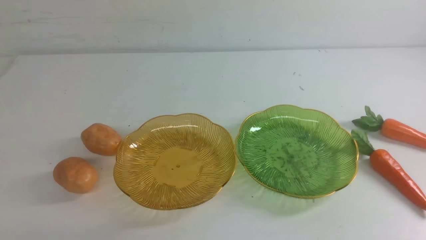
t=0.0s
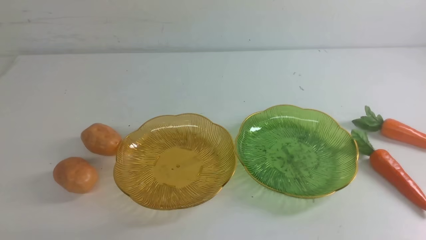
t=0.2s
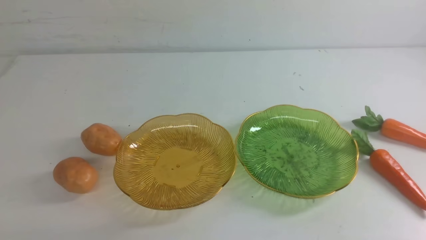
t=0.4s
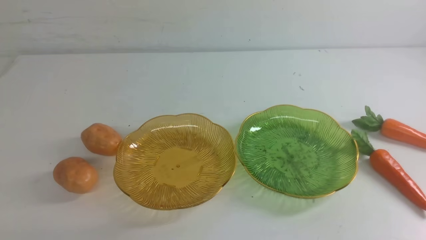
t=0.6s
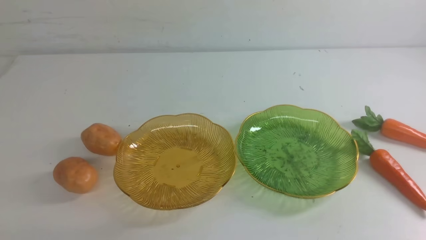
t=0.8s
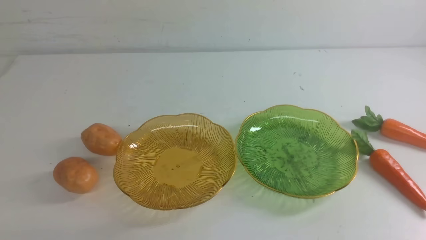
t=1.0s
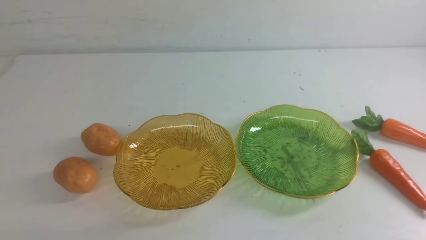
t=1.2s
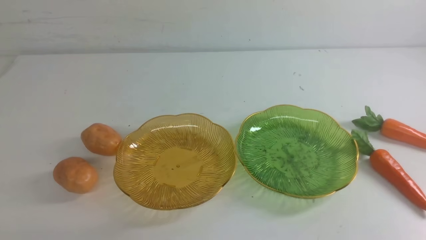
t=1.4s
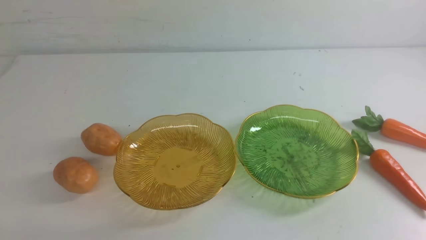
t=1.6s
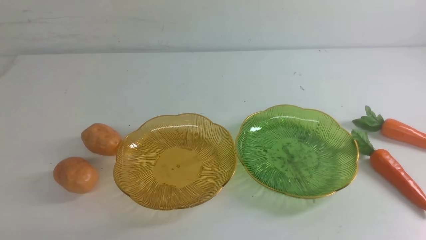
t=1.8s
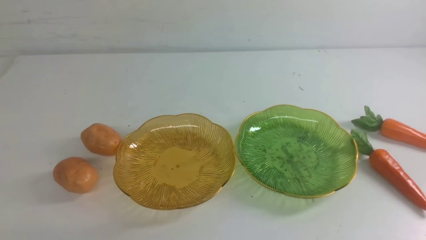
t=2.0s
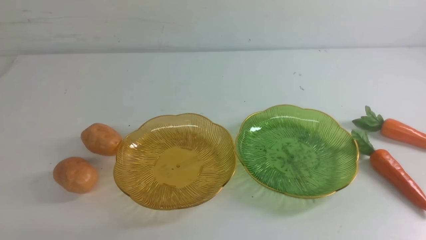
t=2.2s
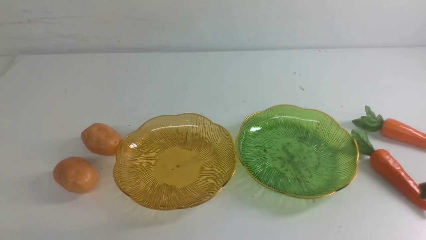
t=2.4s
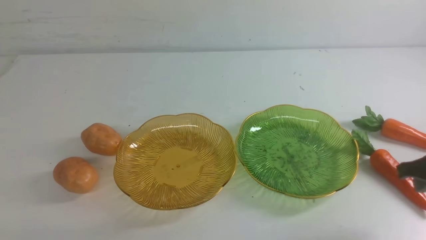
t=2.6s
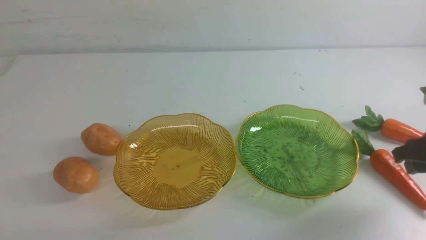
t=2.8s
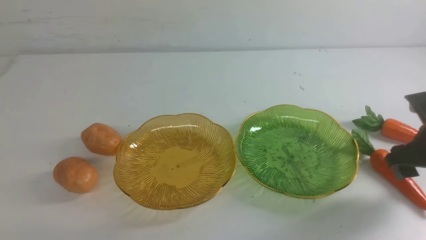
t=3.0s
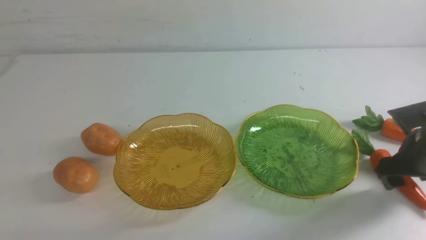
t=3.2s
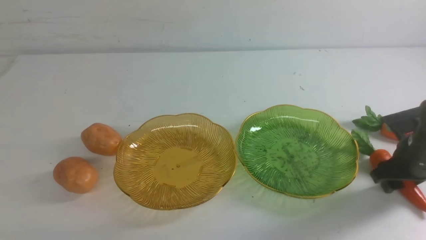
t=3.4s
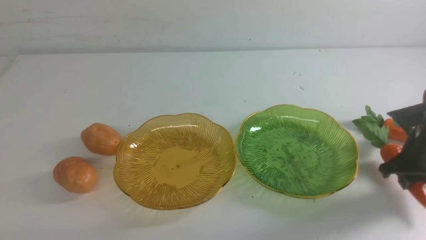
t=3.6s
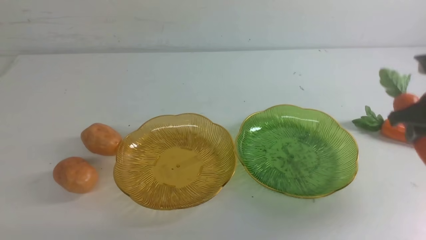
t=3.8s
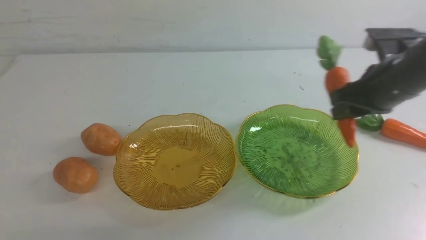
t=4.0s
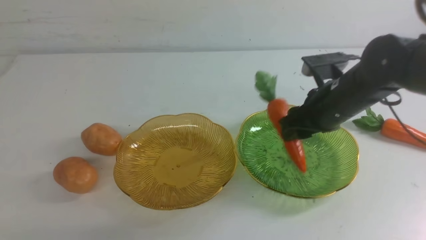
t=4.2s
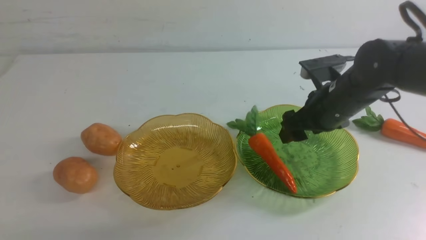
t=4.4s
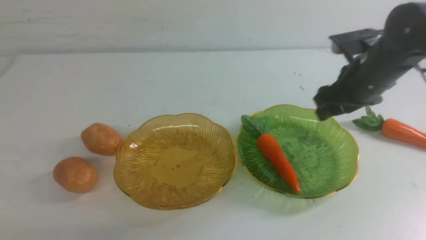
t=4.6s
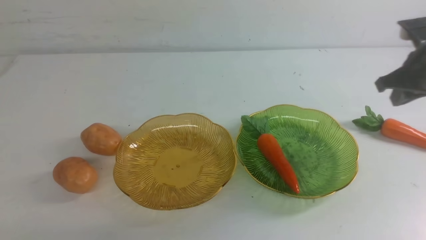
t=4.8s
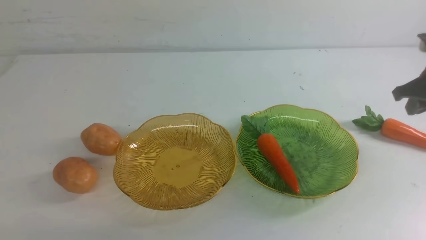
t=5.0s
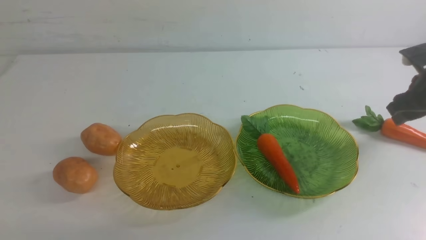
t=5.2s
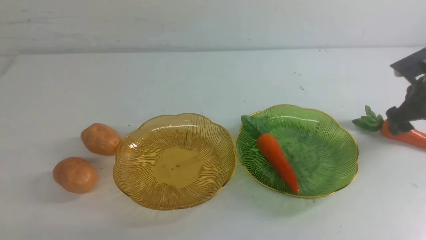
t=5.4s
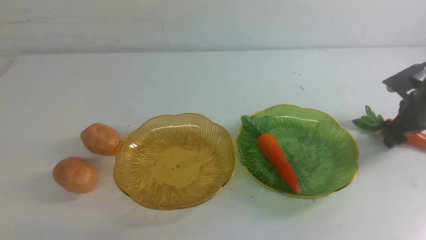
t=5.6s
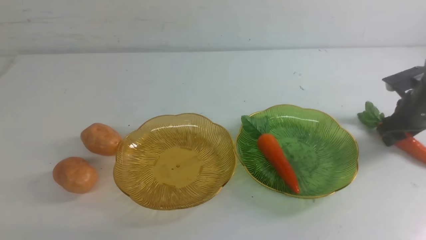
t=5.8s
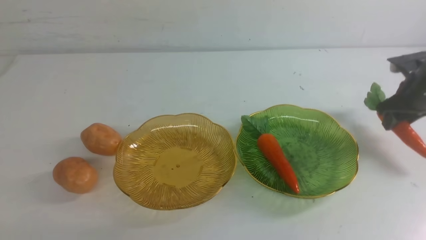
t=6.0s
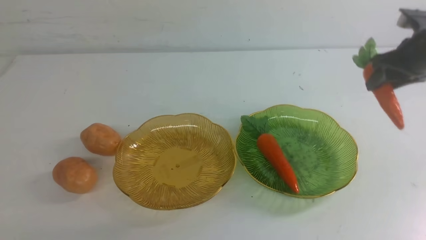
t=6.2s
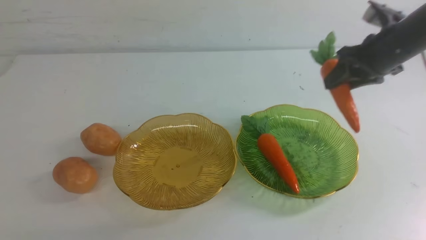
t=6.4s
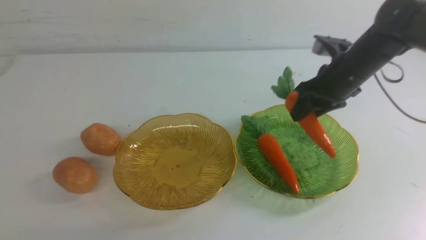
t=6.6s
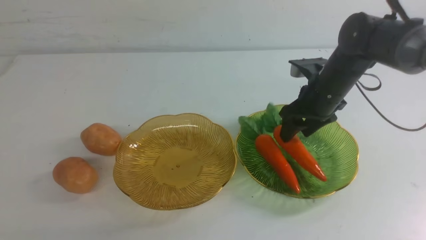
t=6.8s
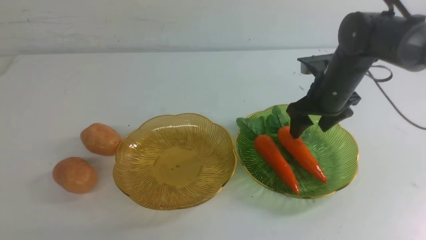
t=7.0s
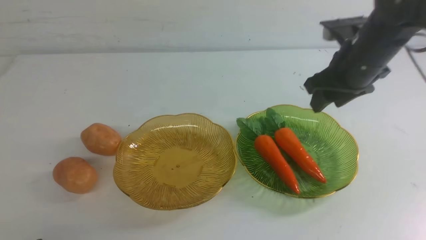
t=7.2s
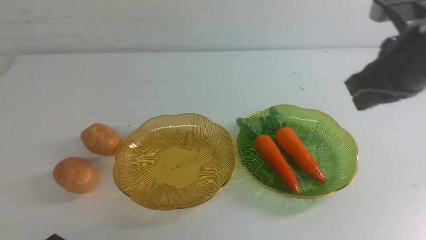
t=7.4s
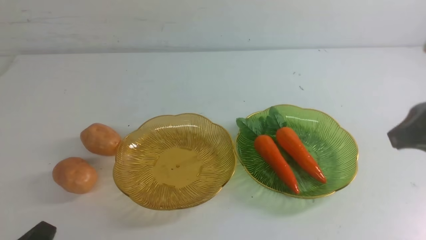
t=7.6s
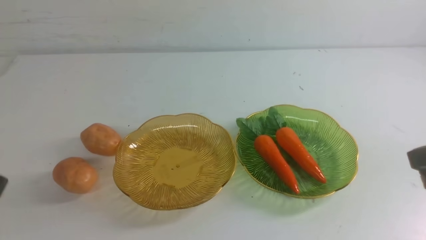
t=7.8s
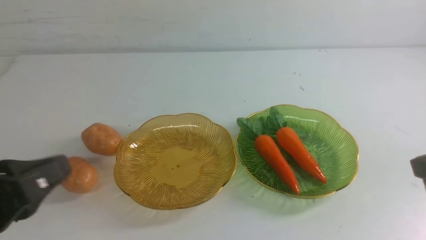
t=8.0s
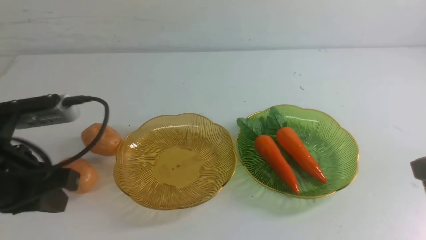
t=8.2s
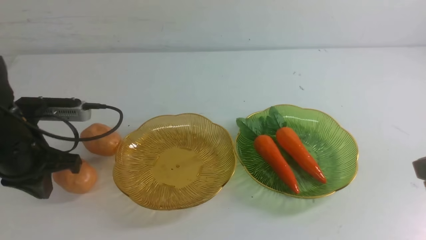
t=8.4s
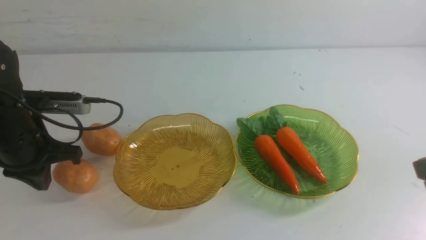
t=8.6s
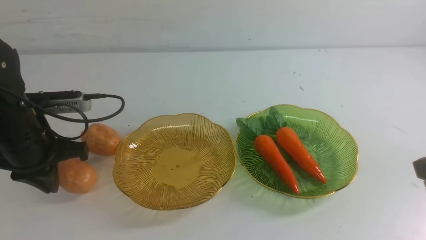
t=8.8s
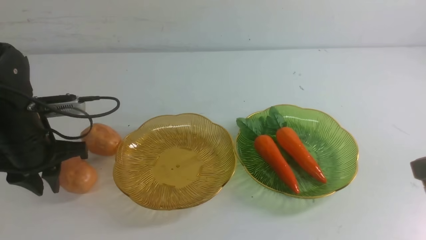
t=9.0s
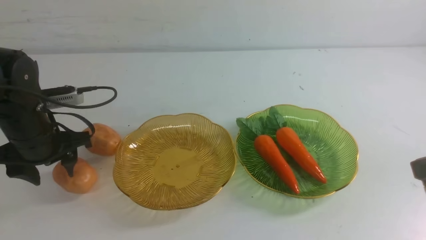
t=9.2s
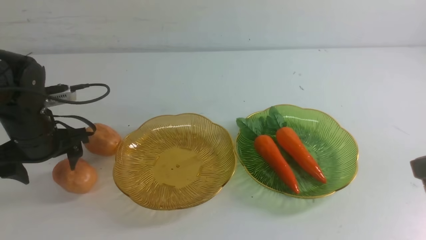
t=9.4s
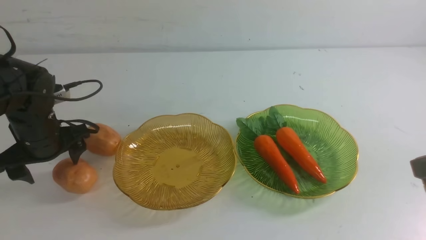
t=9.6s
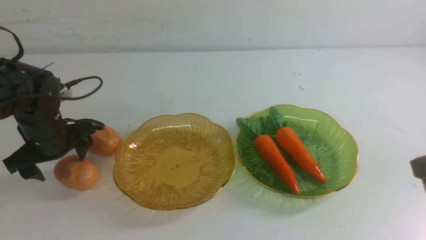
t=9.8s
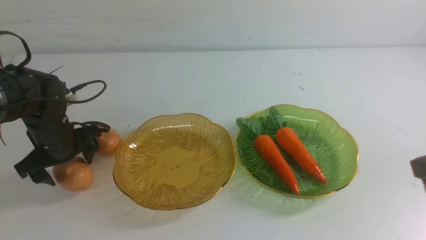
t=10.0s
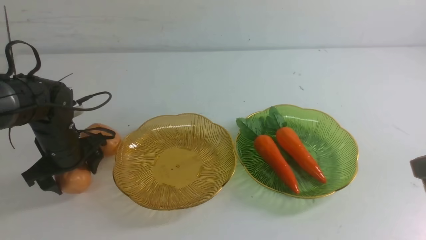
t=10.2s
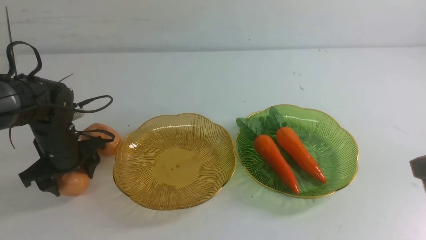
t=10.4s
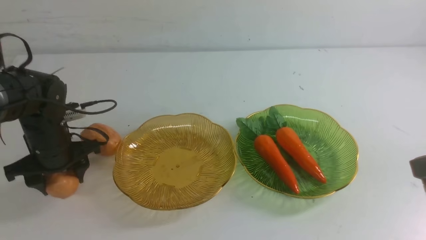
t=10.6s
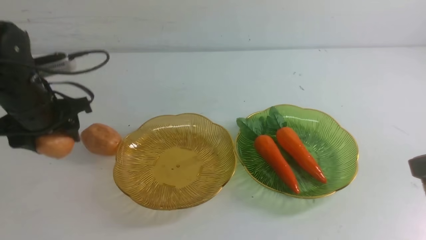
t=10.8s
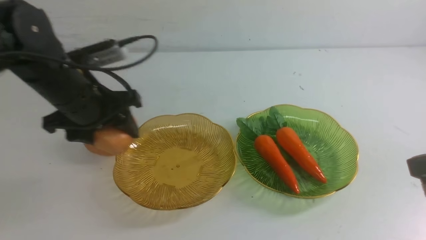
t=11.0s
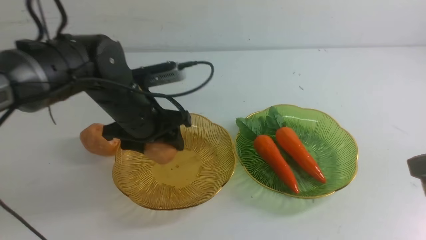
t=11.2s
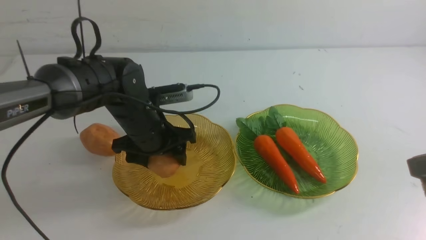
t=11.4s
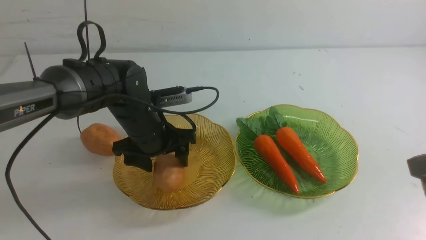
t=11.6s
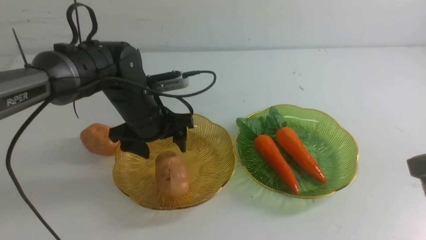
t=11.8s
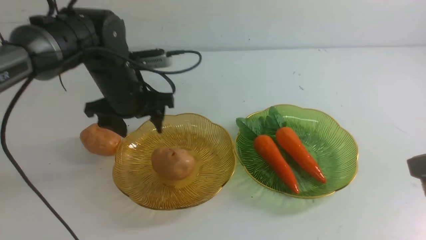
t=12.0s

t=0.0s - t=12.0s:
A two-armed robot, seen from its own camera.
Step, t=0.0s - t=7.2s: use the right arm to grab a carrot and put it into the right plate.
t=1.6s - t=3.0s: The right gripper goes about 25 cm forward, and opens up.
t=3.0s - t=4.4s: The right gripper goes roughly 15 cm to the left, upward and forward.
t=4.4s - t=6.0s: The right gripper is displaced to the right and forward by roughly 15 cm, and closes, then reopens.
t=6.0s - t=7.6s: The right gripper travels backward by approximately 30 cm, and closes up. Meanwhile the left gripper is displaced upward and forward by about 15 cm.
t=7.6s - t=9.0s: The left gripper travels forward and downward by some 20 cm, and opens up.
t=10.4s - t=12.0s: The left gripper goes approximately 10 cm to the right, upward and forward.

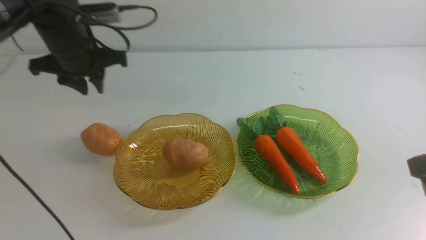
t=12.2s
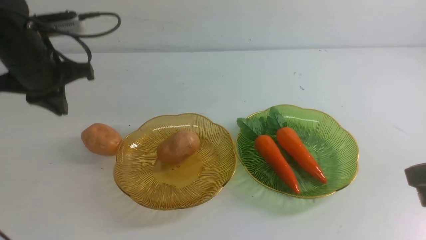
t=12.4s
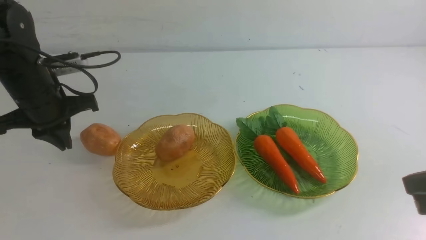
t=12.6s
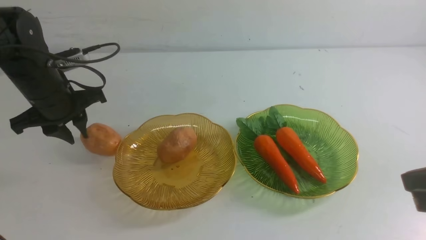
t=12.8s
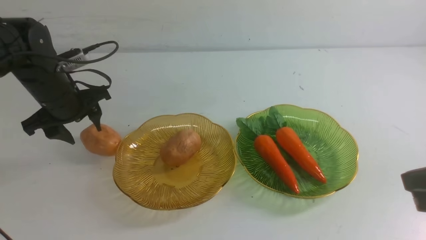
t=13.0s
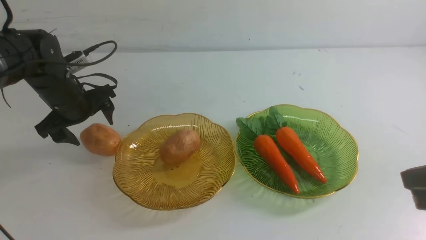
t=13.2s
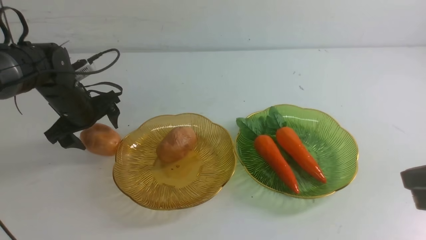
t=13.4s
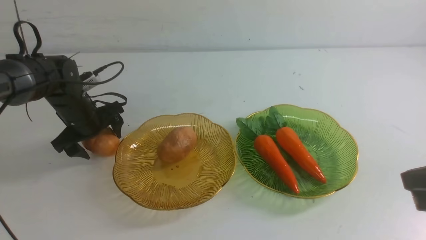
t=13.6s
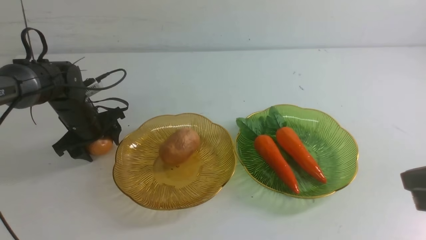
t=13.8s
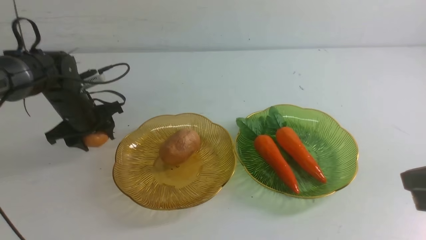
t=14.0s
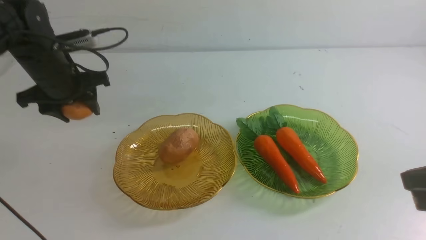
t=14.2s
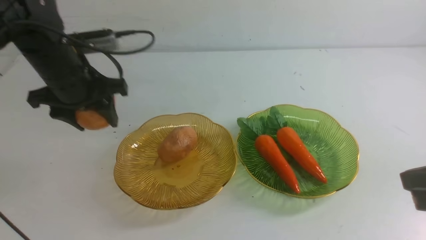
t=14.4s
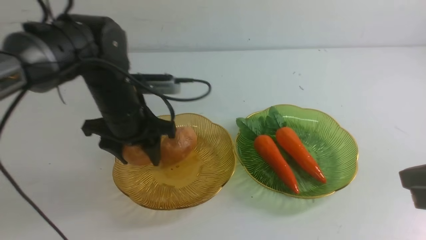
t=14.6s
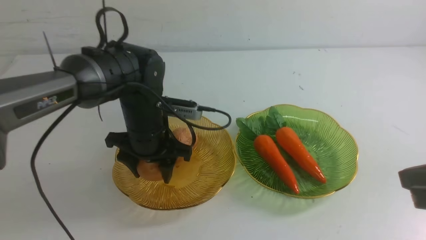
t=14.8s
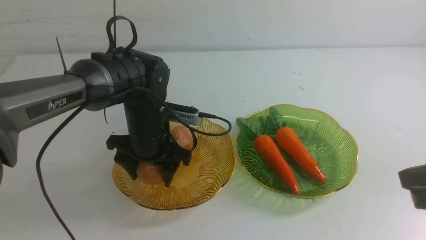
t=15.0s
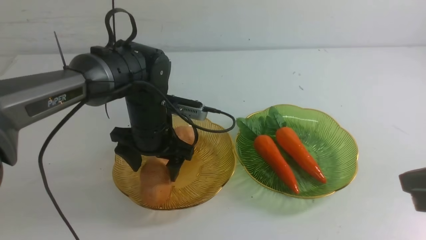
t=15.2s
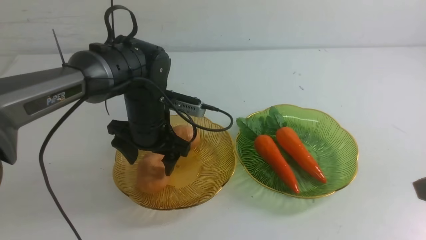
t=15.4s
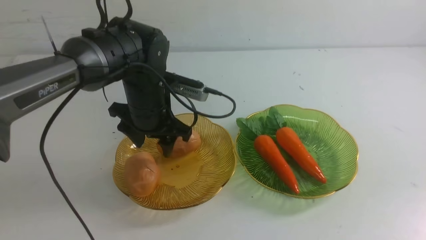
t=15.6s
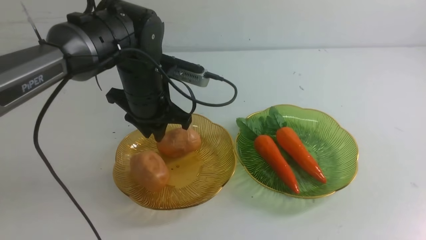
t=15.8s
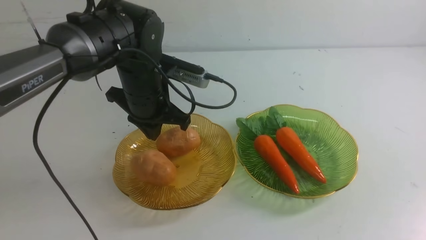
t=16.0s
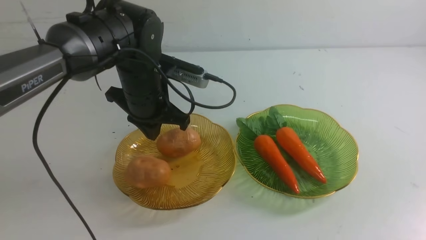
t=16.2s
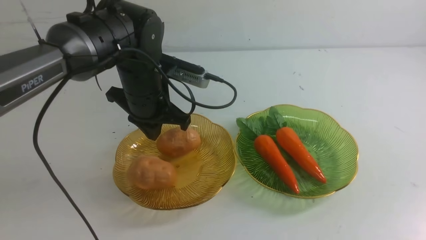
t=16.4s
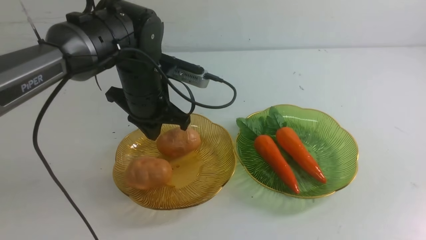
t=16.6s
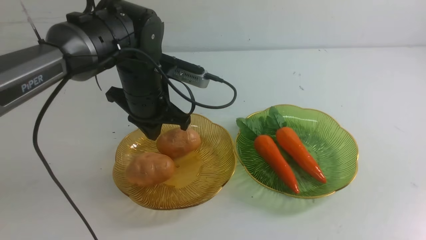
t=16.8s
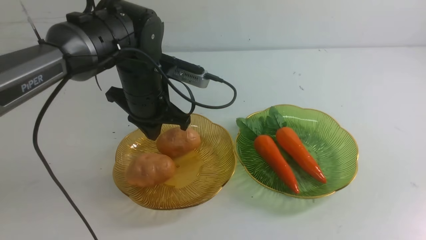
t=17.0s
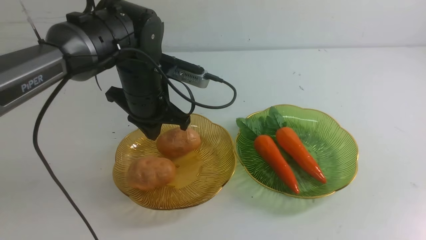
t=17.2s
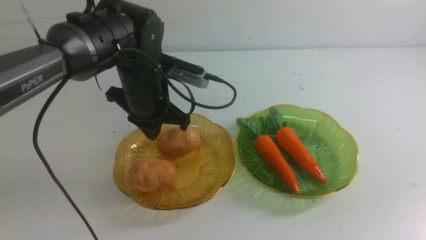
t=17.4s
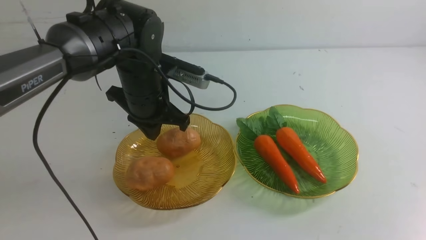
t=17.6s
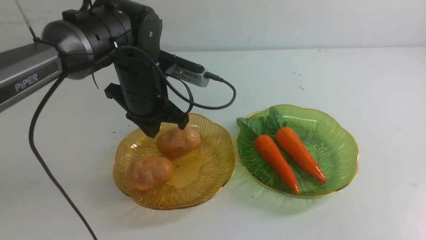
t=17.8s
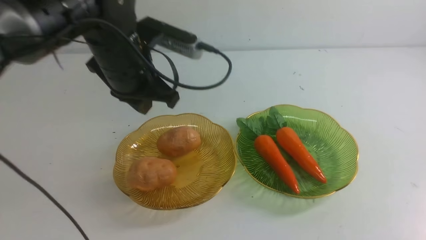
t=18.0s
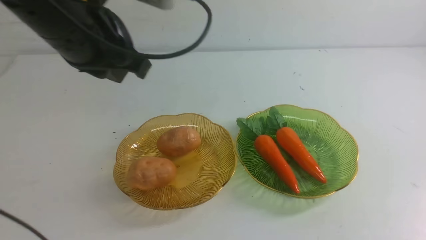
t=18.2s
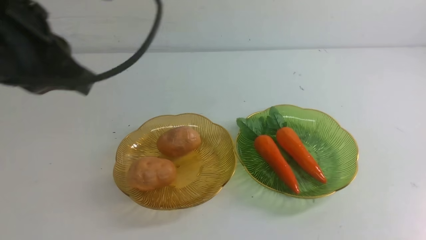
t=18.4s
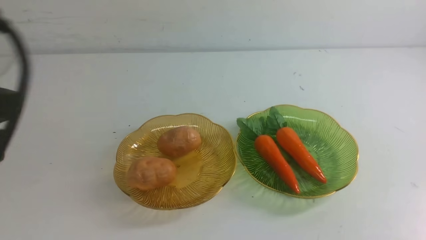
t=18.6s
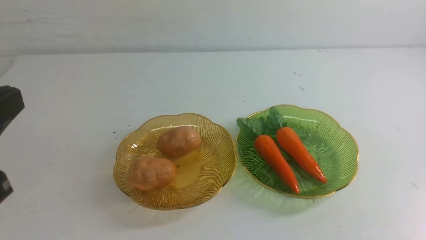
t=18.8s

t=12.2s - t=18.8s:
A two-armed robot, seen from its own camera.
Step, t=12.2s - t=15.4s: Grab a potato with your left arm and put it on the left plate.
t=12.2s - t=13.8s: The left gripper shifts some 15 cm downward, and opens its fingers.
t=13.8s - t=15.4s: The left gripper moves to the right, roughly 15 cm.
t=15.4s - t=17.2s: The left gripper closes. The right gripper goes some 10 cm backward.
t=17.2s - t=18.8s: The left gripper goes some 30 cm backward, upward and to the left; the right gripper heads downward, covering about 10 cm.
